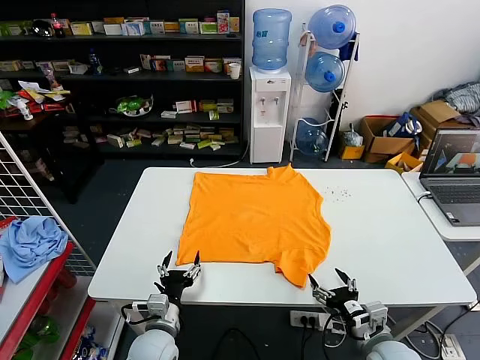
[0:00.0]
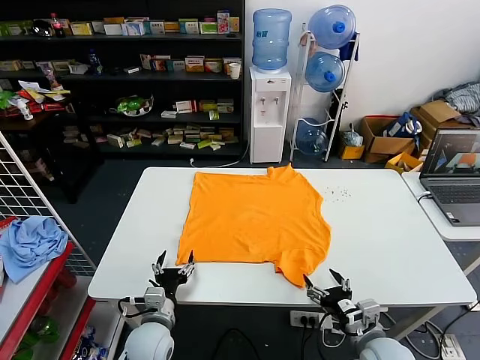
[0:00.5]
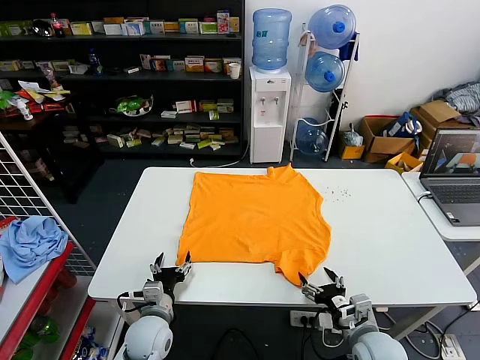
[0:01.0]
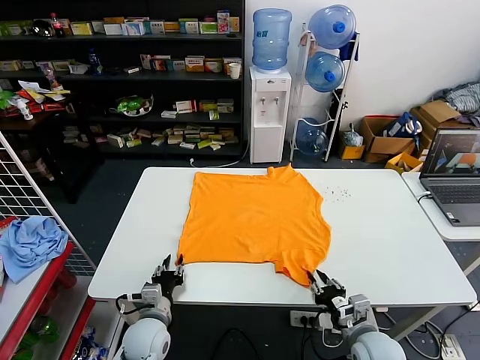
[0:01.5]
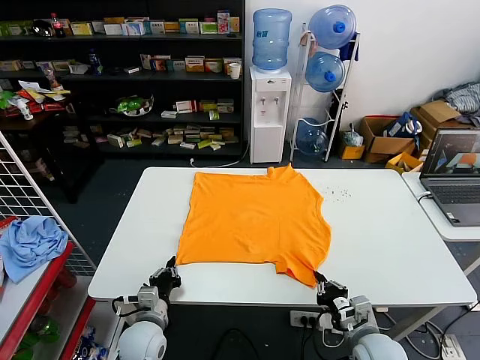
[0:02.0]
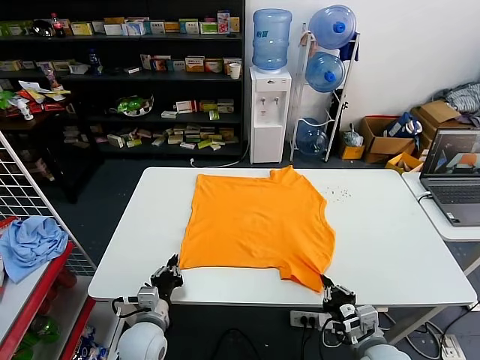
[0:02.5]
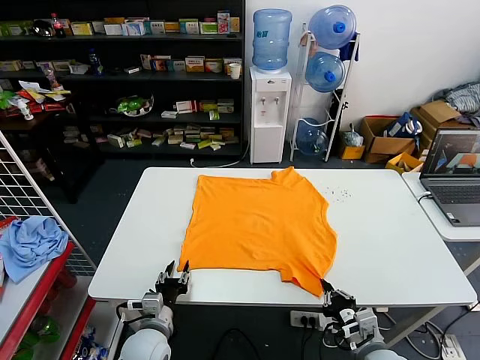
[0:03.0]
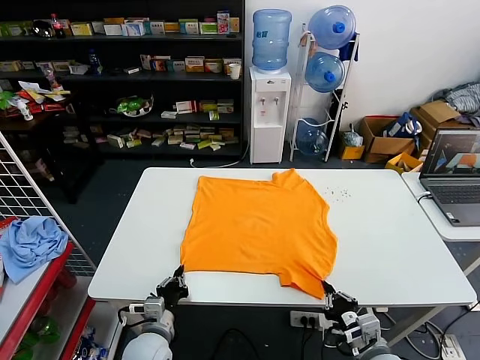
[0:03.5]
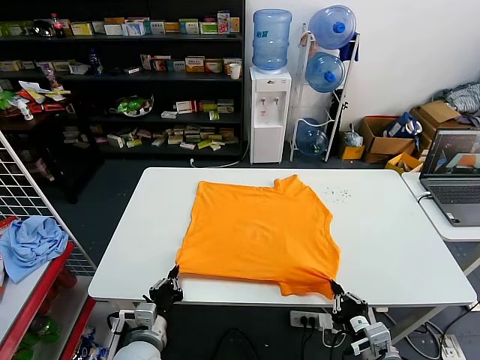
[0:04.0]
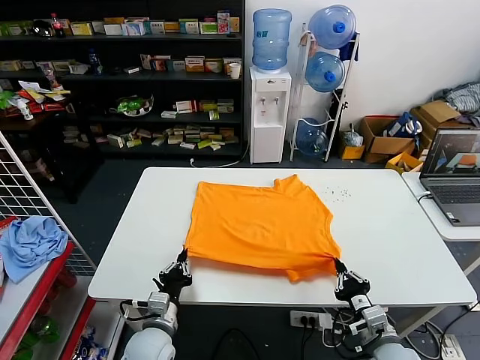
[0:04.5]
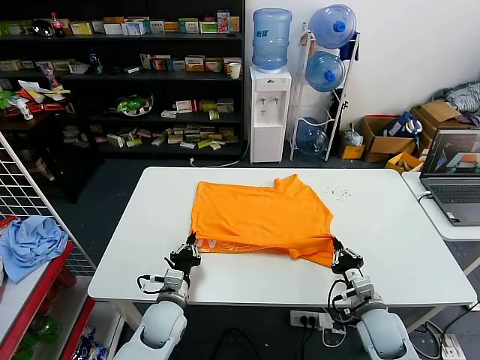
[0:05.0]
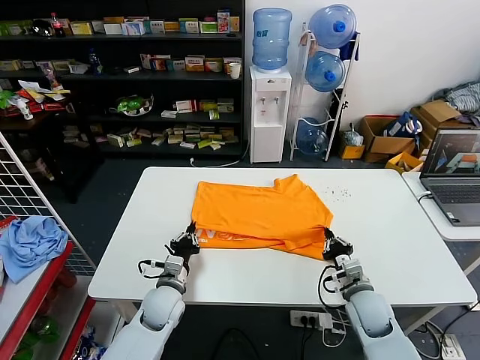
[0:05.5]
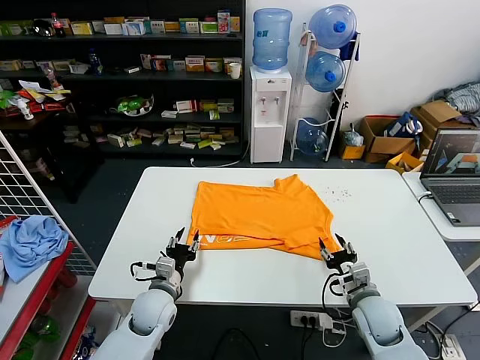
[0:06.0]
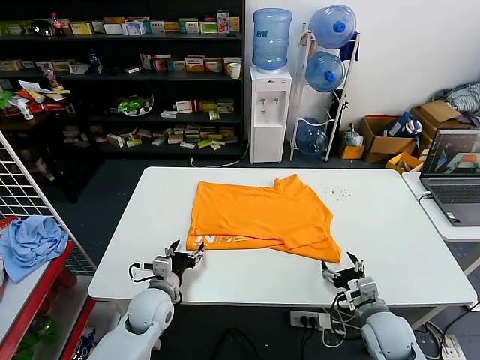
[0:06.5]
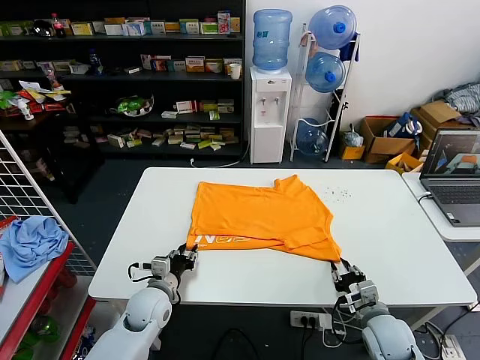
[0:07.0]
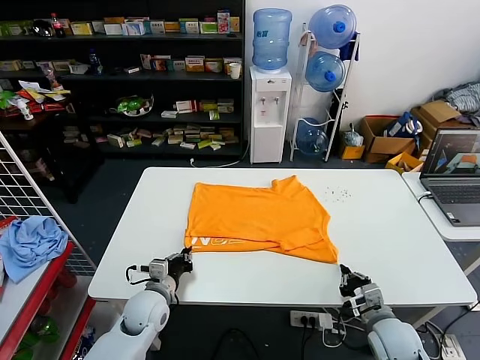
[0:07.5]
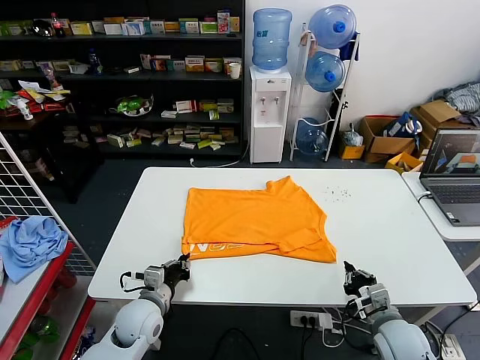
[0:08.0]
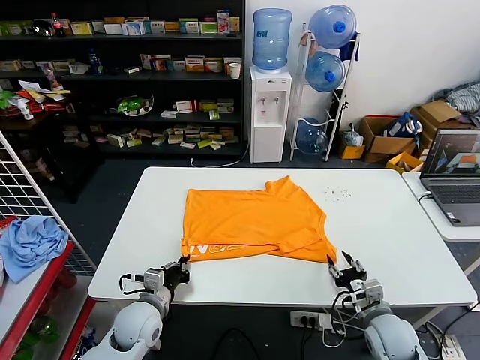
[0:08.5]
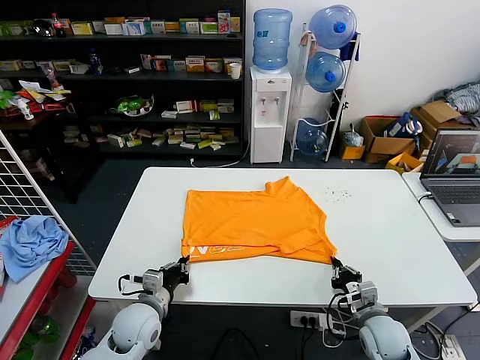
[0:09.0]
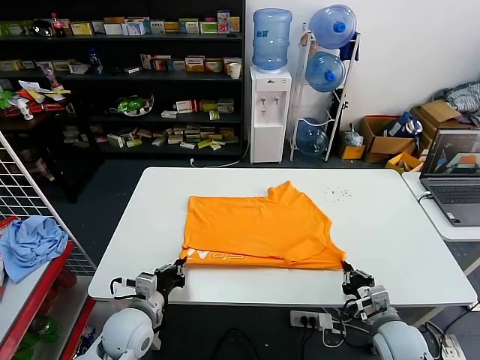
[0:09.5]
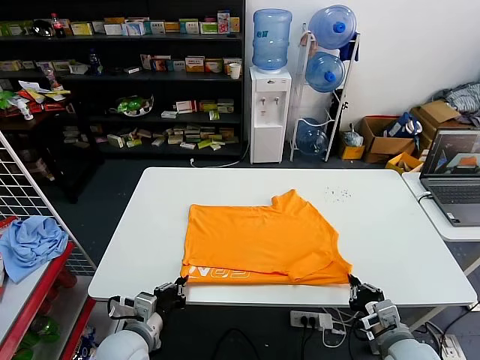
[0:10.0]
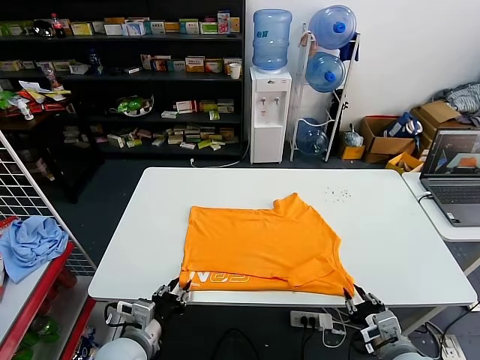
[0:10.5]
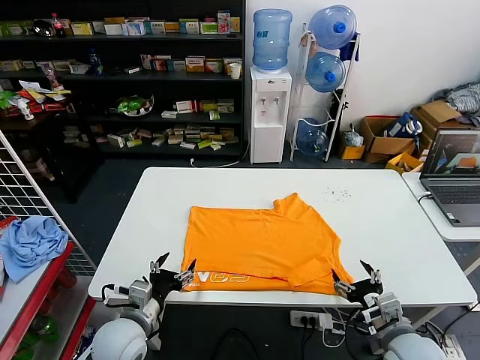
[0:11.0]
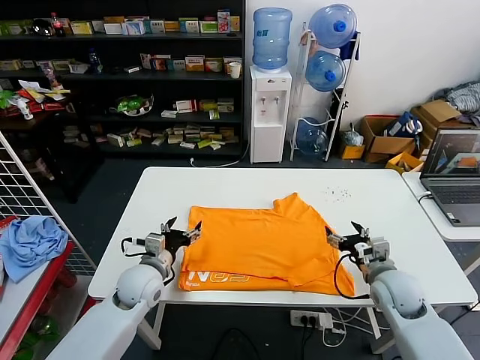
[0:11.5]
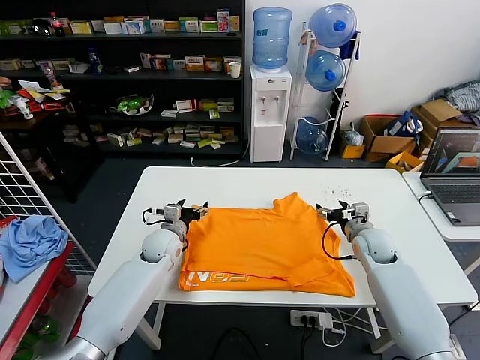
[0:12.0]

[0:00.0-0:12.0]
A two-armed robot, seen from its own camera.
Task of the whole recording: fold and organize the clothes.
Step, 0:00.0 to 0:02.0: use both grippers simultaneously to clamp the lower edge of the clothing fabric.
Step, 0:02.5 to 0:05.5: use both grippers to drag the lower edge of the fabric forward and fold it over the upper edge.
Step, 0:06.0 to 0:10.5: Drag the clothes downward with both gripper.
0:02.0 to 0:04.0: The left gripper shifts by about 5 cm, and opens, then closes again, while the right gripper heads backward, covering some 5 cm.
0:04.0 to 0:06.0: The two grippers go approximately 10 cm forward. The left gripper opens up. Meanwhile the right gripper opens up.
0:06.0 to 0:08.0: The left gripper closes its fingers. Meanwhile the right gripper closes up.
0:08.0 to 0:10.0: The grippers both shift backward by about 5 cm. The right gripper opens, then closes again.
0:10.0 to 0:12.0: The two grippers go some 25 cm forward. The right gripper opens; the left gripper opens its fingers.

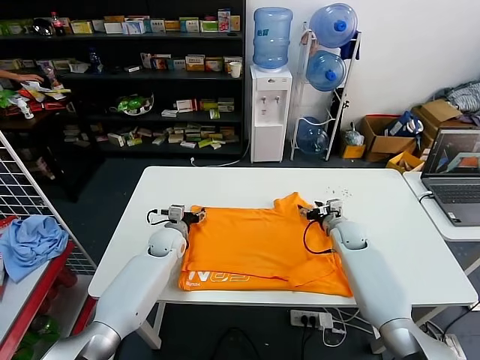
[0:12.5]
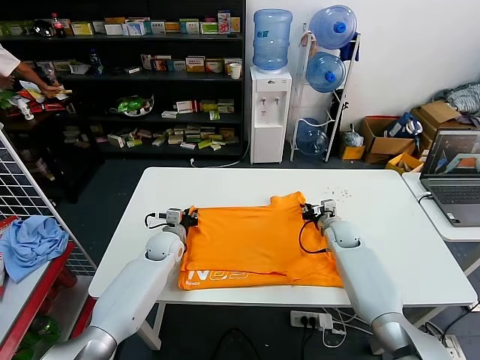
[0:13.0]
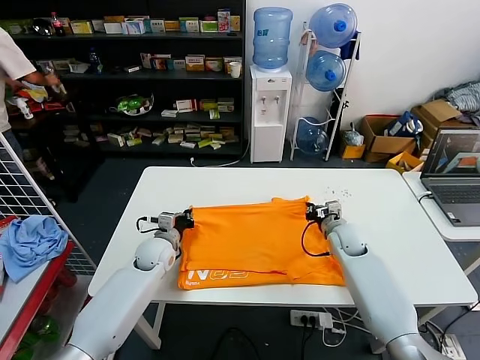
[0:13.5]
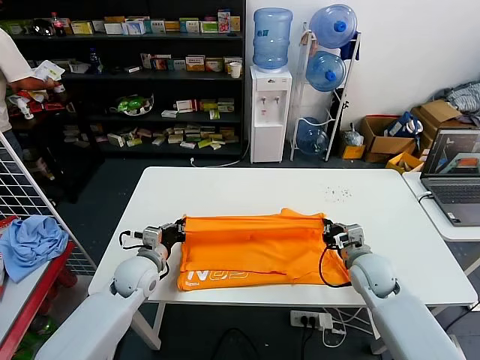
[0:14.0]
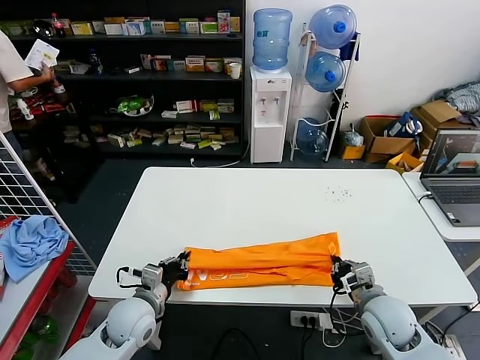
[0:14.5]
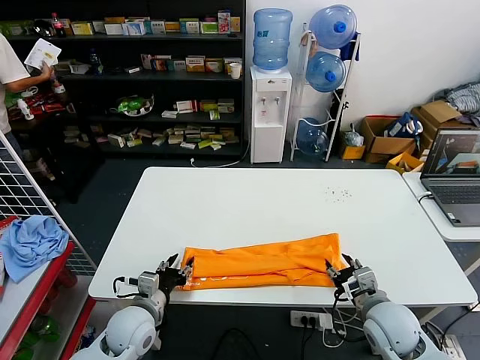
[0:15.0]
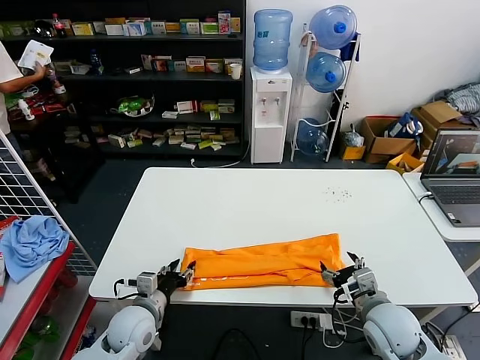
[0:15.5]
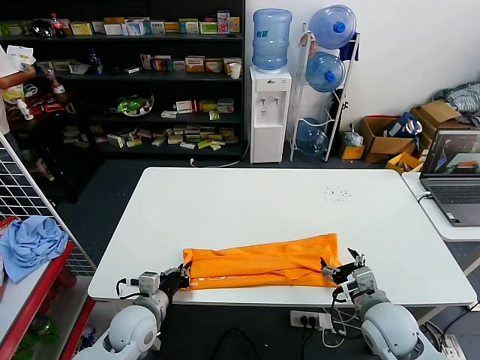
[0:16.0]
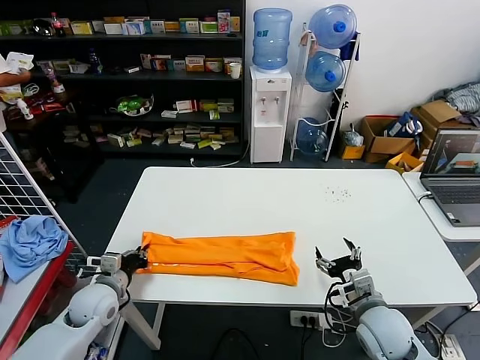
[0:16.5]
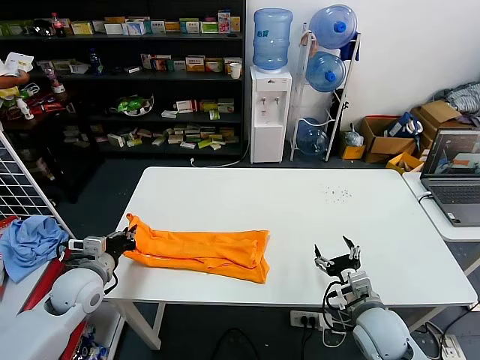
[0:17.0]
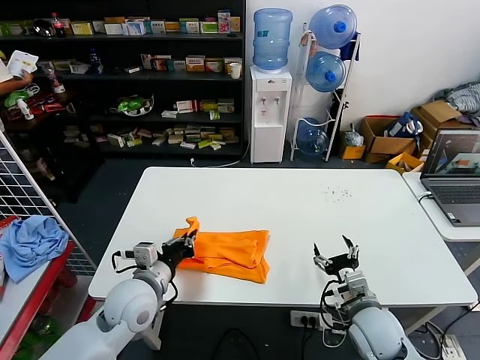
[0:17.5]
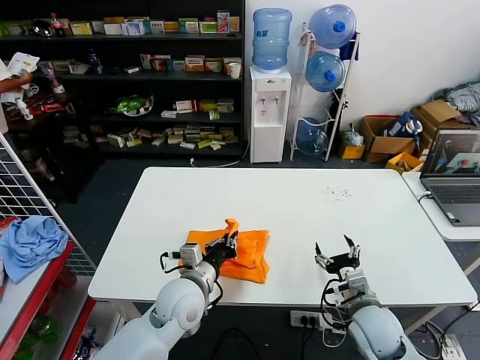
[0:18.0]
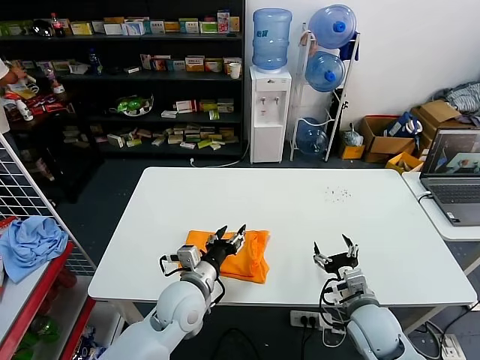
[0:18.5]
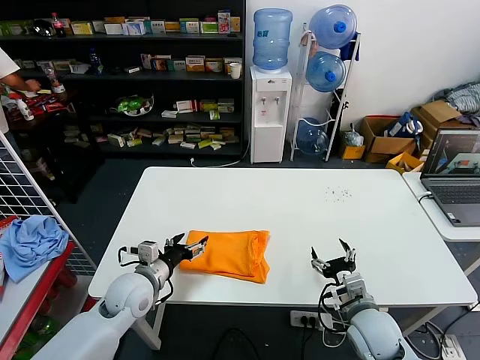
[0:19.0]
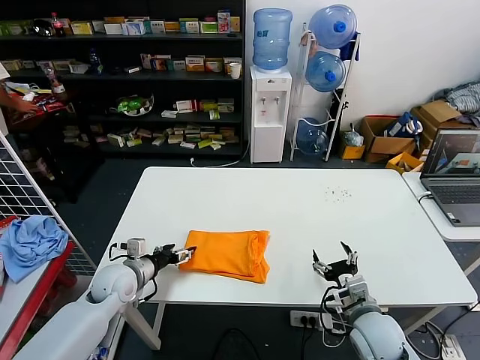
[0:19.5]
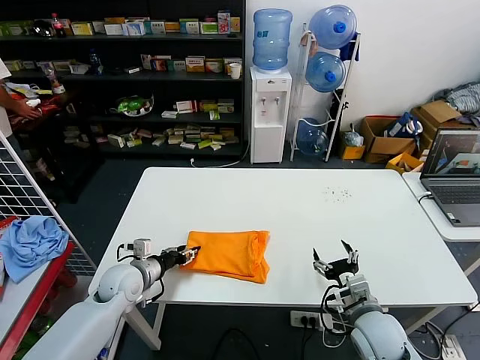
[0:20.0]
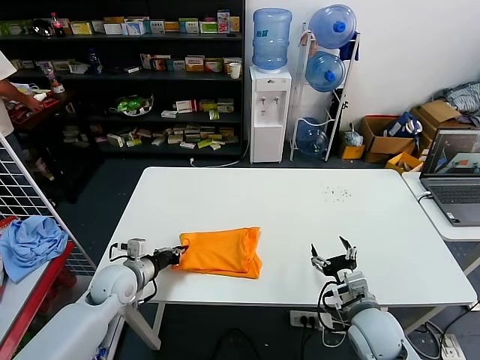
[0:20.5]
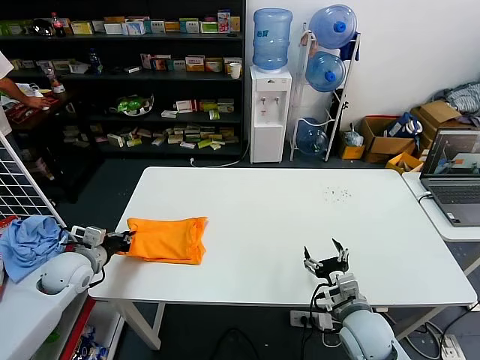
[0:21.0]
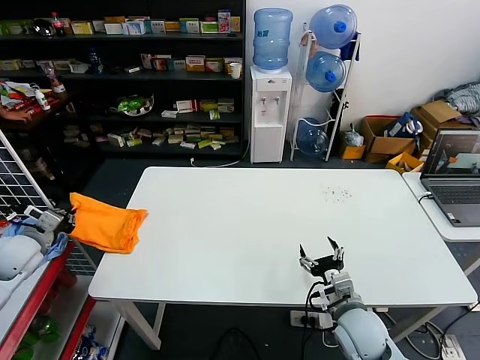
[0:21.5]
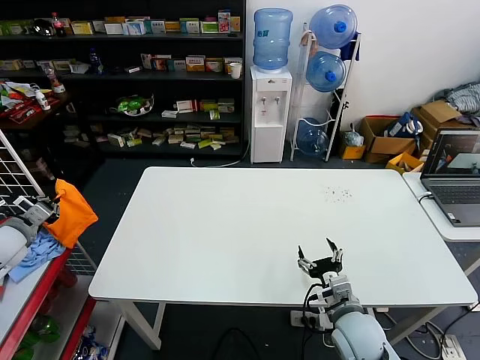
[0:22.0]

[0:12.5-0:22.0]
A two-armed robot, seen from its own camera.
Task of the whole recording: fold and organize the clothes.
Step, 0:13.5 to 0:14.5: use both grippers to drag the upper edge of the fabric backward and fold it over the lower edge.
Step, 0:15.0 to 0:16.0: use the left gripper to clamp the left edge of the fabric.
Step, 0:16.5 to 0:18.0: use the left gripper to drag the left edge of the fabric to the left and folds it over the right edge.
0:12.5 to 0:14.5: The two grippers go some 20 cm backward. The right gripper closes; the left gripper closes.
0:14.5 to 0:16.5: The left gripper shifts about 10 cm to the left, and opens, then closes once more. Meanwhile the right gripper opens up.
0:16.5 to 0:18.0: The left gripper travels to the right by some 20 cm.
0:18.0 to 0:20.0: The left gripper moves to the left, about 15 cm, and opens up.
0:20.0 to 0:22.0: The left gripper is displaced to the left and upward by about 25 cm, and closes.

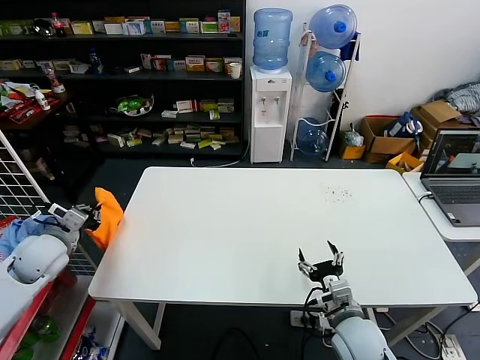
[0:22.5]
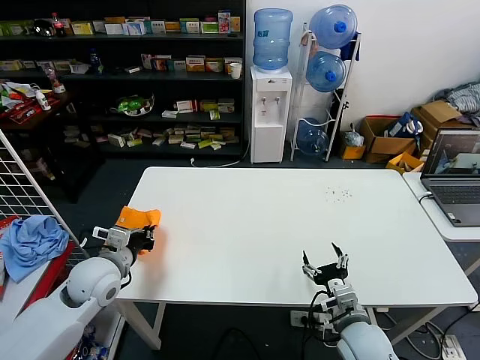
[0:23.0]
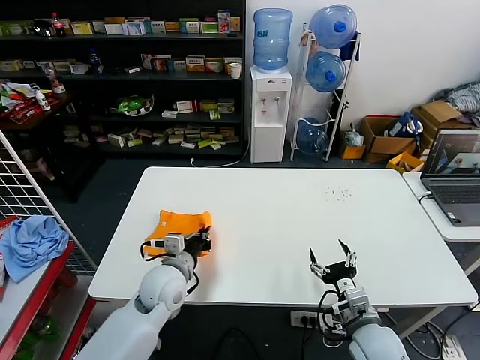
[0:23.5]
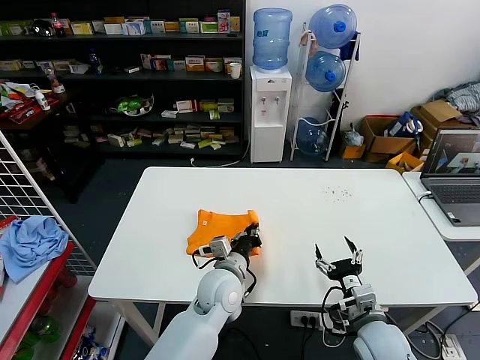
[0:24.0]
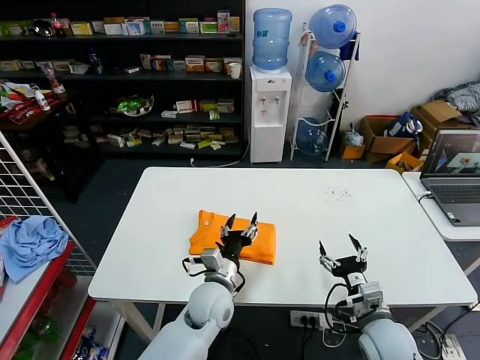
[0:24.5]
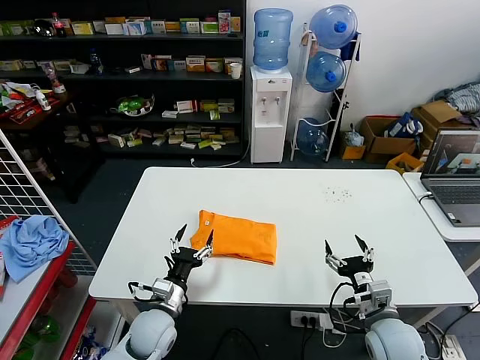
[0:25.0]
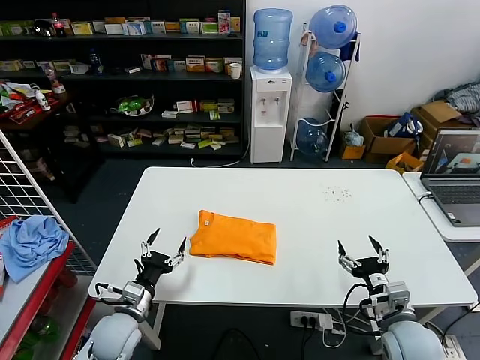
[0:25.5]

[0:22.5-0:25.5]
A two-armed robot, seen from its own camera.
Task of the whole recording: fold and organize the clothes.
0:22.5 to 0:24.0: The left gripper moves to the right, roughly 40 cm.
0:24.0 to 0:25.5: The left gripper shifts about 20 cm to the left, and opens its fingers. Meanwhile the right gripper changes place by approximately 5 cm.
